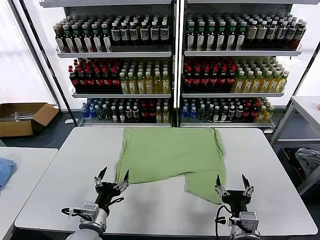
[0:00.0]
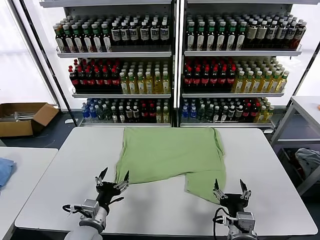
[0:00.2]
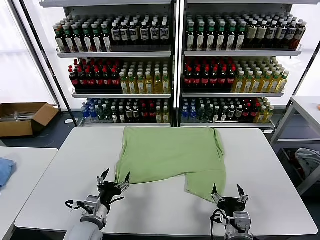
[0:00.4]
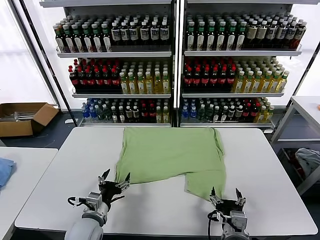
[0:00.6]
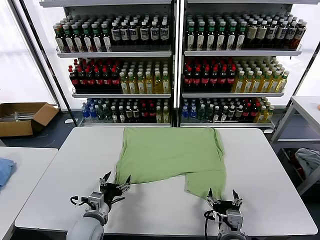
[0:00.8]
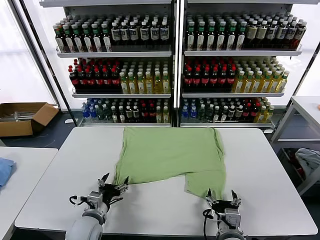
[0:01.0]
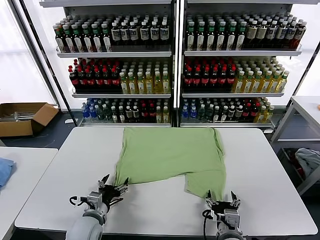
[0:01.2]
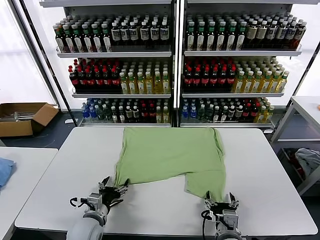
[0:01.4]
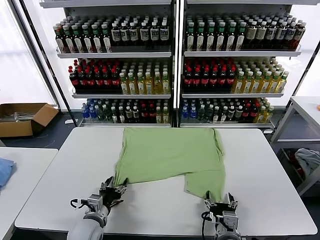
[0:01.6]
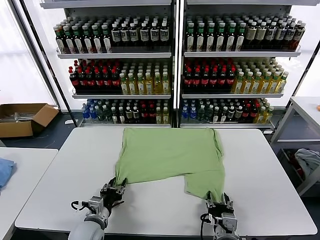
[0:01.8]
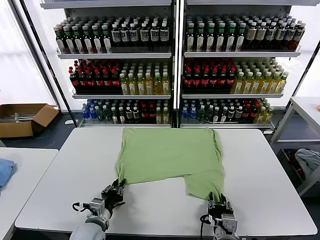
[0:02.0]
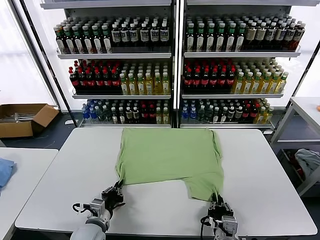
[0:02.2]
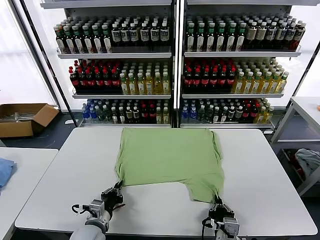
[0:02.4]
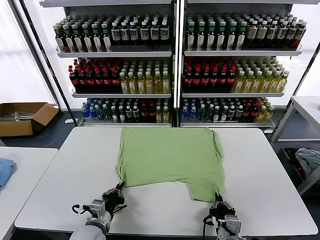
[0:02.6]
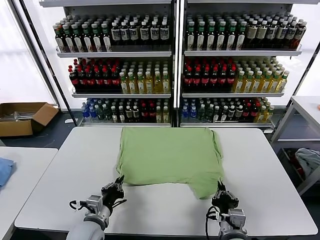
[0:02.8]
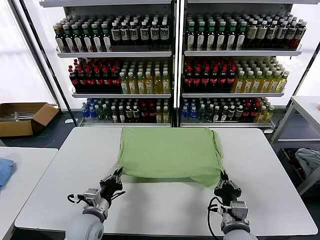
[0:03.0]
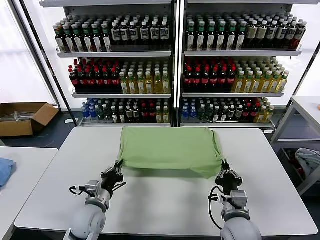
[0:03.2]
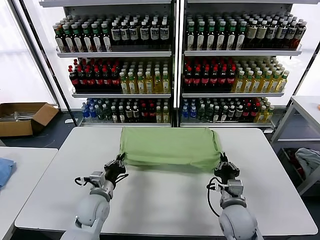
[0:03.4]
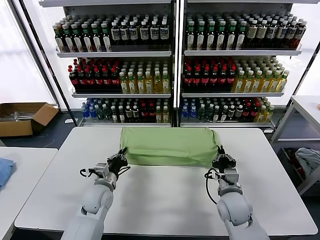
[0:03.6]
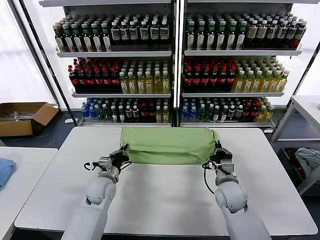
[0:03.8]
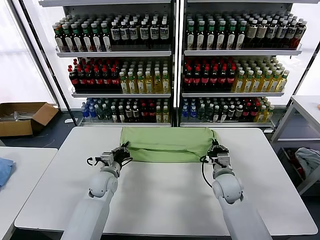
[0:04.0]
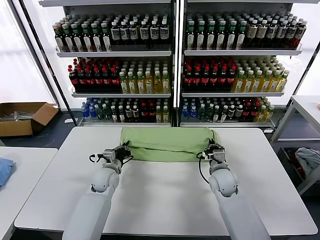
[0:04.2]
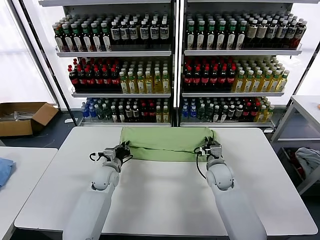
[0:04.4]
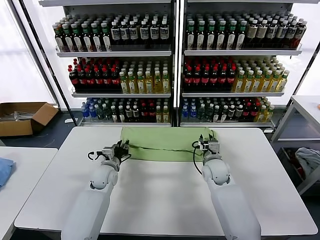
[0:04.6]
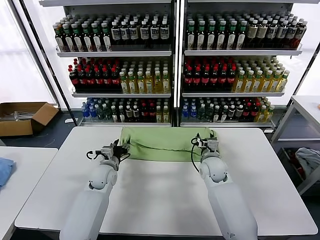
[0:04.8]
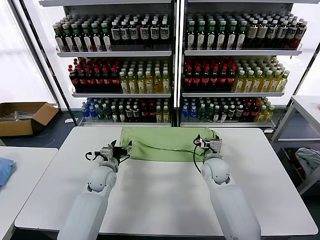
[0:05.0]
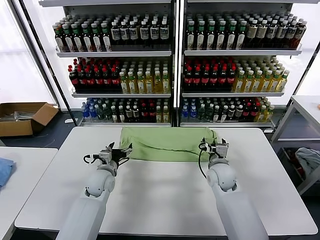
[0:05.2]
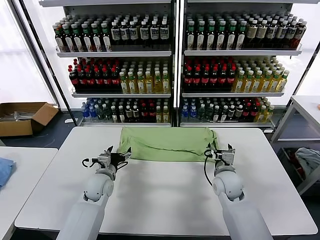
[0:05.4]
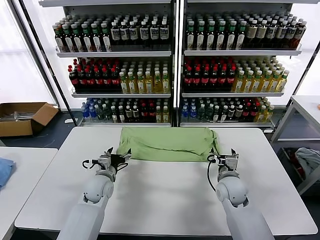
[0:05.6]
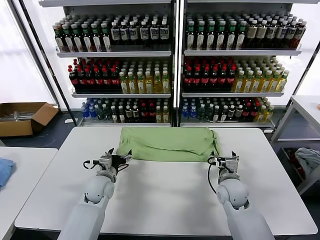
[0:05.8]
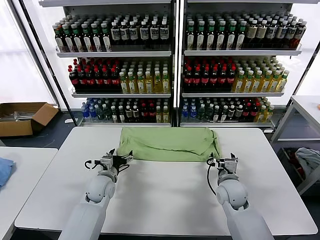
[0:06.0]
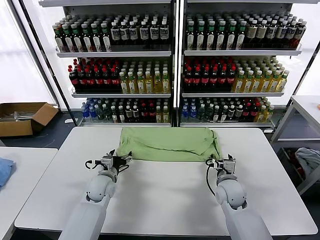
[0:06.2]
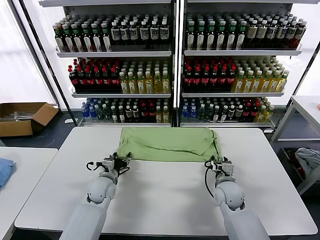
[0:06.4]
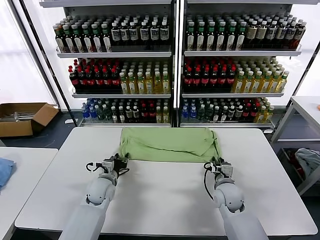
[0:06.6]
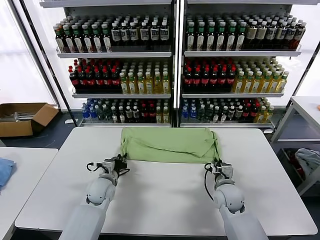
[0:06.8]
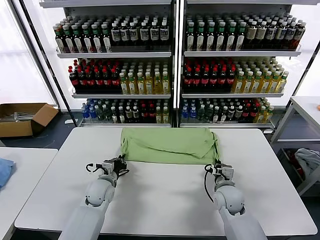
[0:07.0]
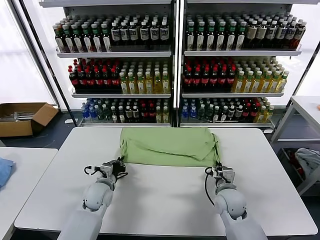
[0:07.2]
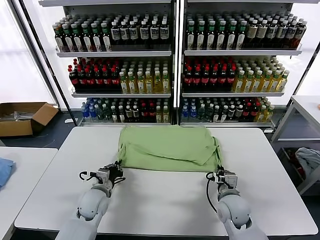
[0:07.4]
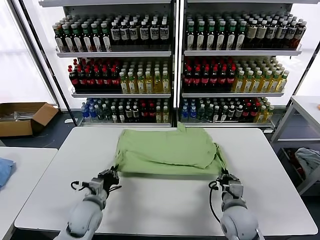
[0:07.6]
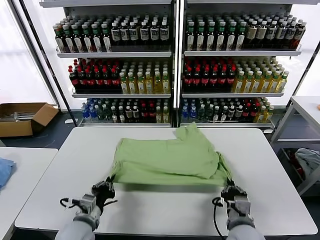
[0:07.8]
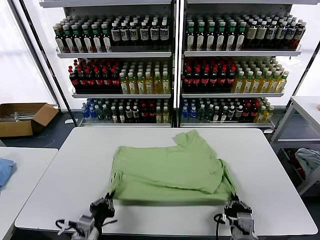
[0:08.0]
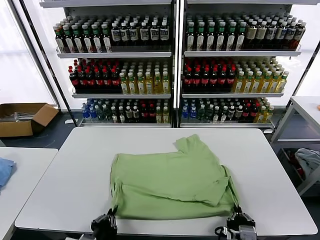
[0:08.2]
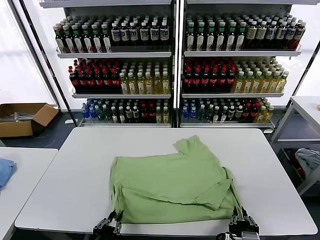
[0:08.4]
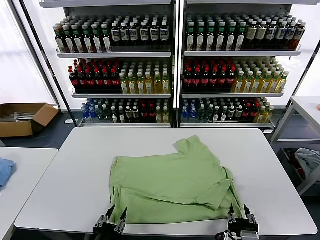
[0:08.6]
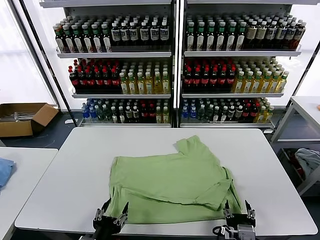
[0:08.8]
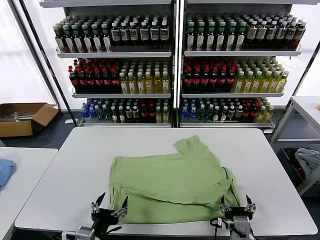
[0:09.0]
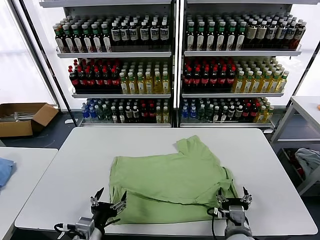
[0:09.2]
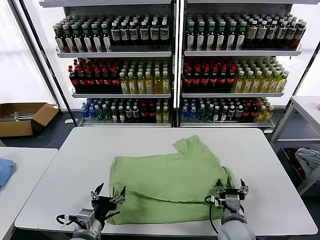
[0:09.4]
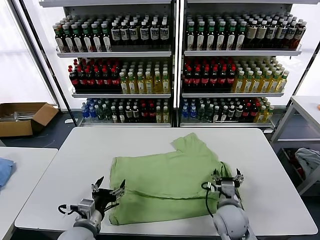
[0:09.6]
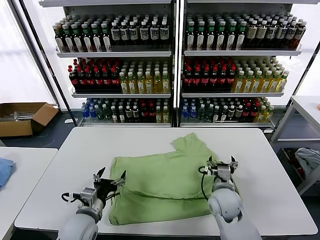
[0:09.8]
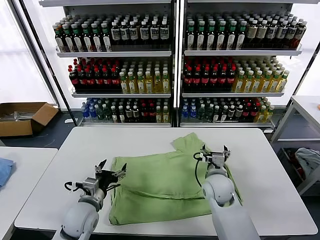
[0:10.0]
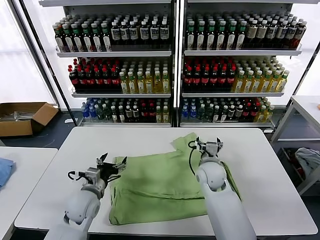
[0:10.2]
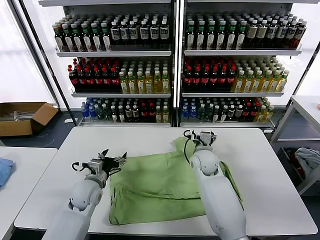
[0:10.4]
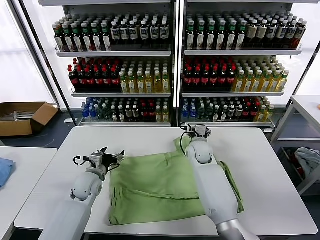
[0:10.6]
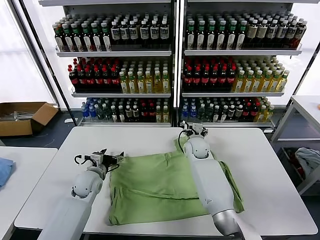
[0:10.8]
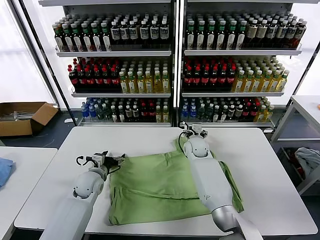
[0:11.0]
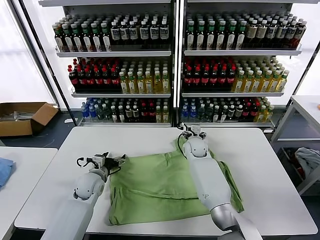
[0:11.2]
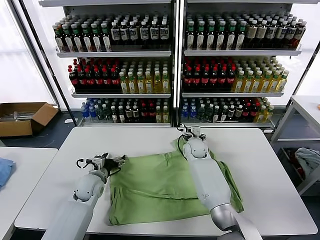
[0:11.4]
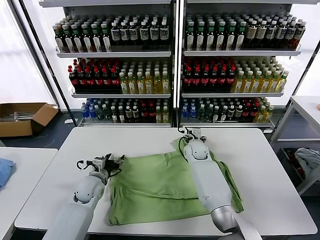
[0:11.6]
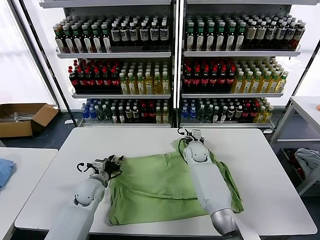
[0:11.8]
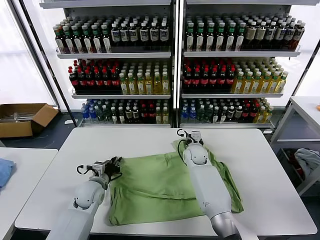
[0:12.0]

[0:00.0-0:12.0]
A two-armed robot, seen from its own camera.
Task of the whole recording: fold and organize the clothes.
Step, 0:00.0 to 0:02.4: use both grippers simultaneously to clamp the lower edge of the clothing fabric.
Step, 0:02.6 to 0:05.0: use both grippers to drag the lower edge of the fabric forward and fold it over the upper edge.
Step, 0:05.2 to 0:08.6: Drag the clothes downward with both gripper.
0:01.6 to 0:03.0: The left gripper closes its fingers. The right gripper heads upward, covering approximately 5 cm, and closes.
0:03.0 to 0:04.4: Both grippers travel together forward, some 20 cm.
0:04.4 to 0:06.0: The right gripper goes approximately 5 cm backward, and opens. The left gripper opens.
0:06.0 to 0:07.6: Both grippers move backward, roughly 10 cm. The right gripper closes its fingers. The left gripper closes its fingers.
0:07.6 to 0:09.0: The left gripper travels backward by roughly 15 cm, and opens. Meanwhile the right gripper goes some 10 cm backward, and opens up.
0:09.0 to 0:10.4: The two grippers go roughly 25 cm forward.
0:10.4 to 0:12.0: The right gripper heads downward and forward, covering some 10 cm, and closes up. The left gripper closes its fingers.

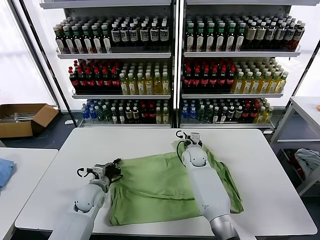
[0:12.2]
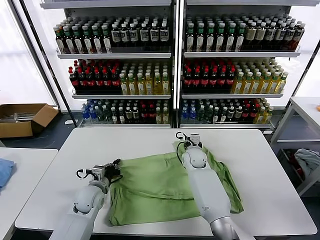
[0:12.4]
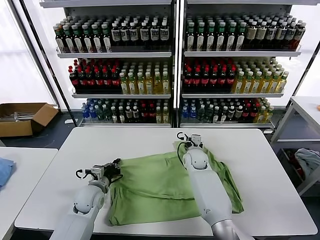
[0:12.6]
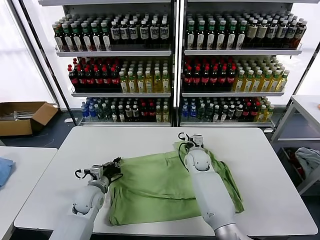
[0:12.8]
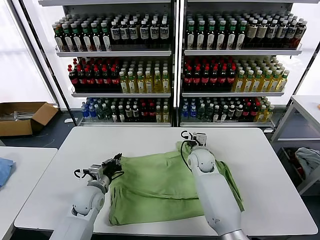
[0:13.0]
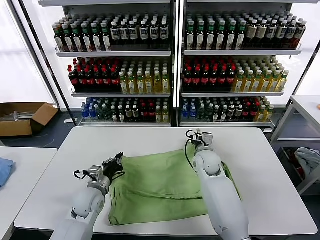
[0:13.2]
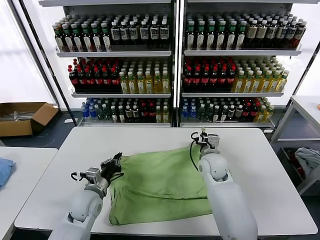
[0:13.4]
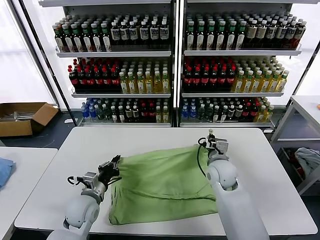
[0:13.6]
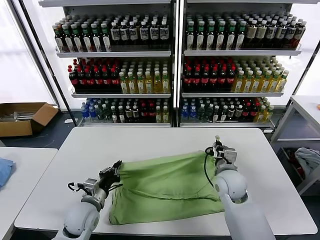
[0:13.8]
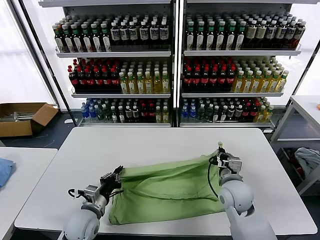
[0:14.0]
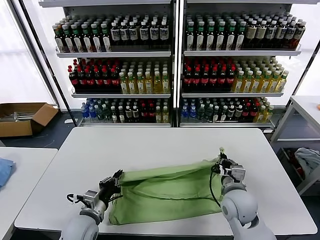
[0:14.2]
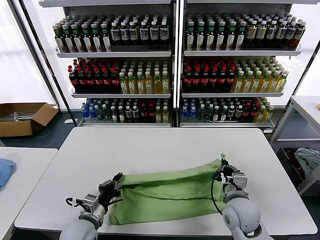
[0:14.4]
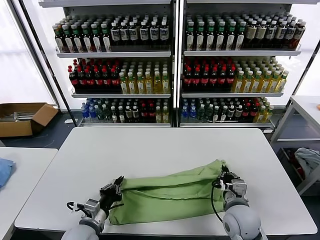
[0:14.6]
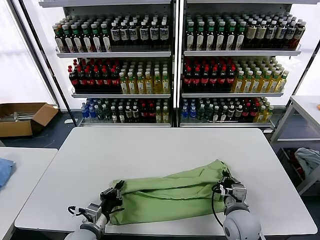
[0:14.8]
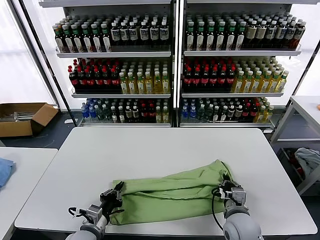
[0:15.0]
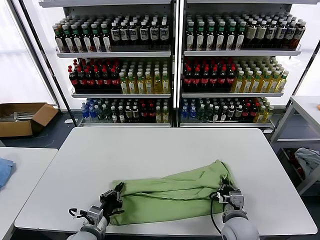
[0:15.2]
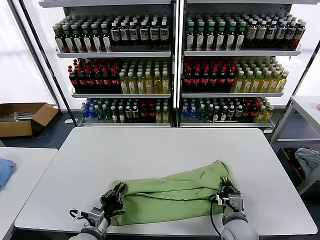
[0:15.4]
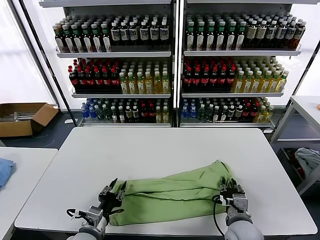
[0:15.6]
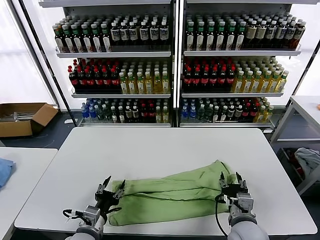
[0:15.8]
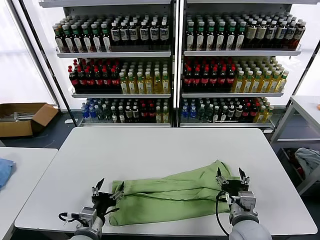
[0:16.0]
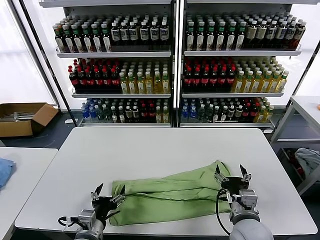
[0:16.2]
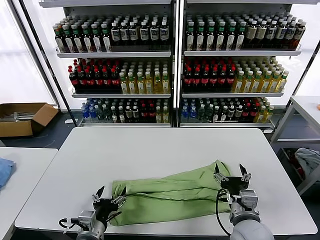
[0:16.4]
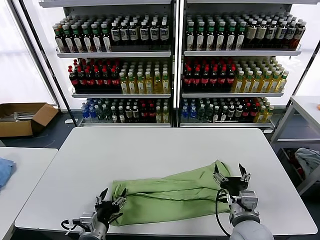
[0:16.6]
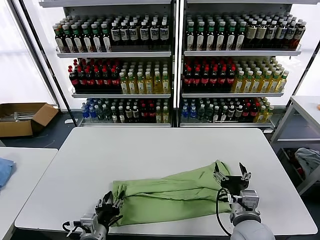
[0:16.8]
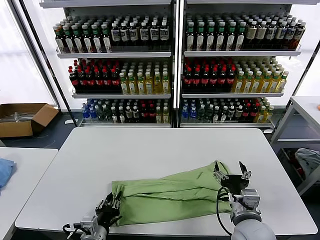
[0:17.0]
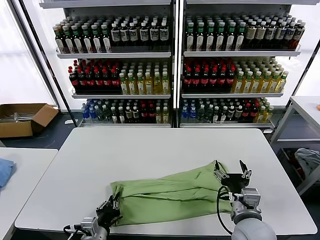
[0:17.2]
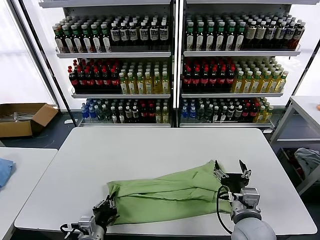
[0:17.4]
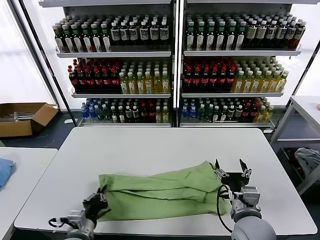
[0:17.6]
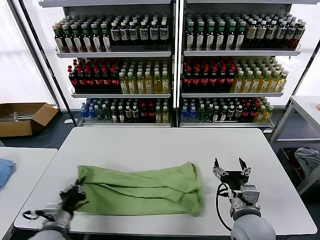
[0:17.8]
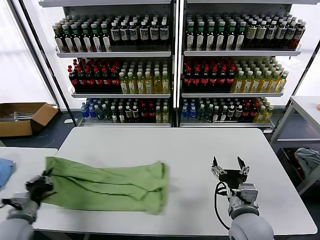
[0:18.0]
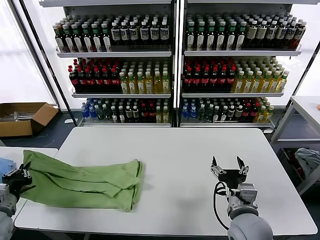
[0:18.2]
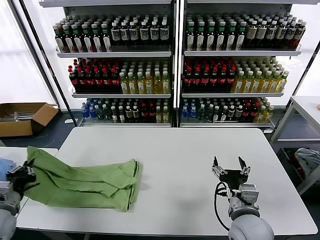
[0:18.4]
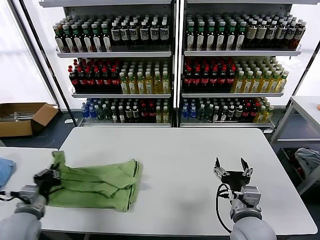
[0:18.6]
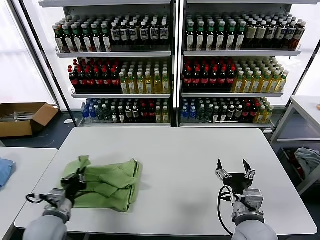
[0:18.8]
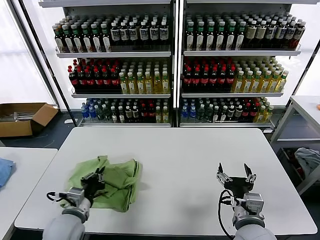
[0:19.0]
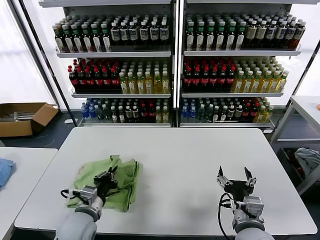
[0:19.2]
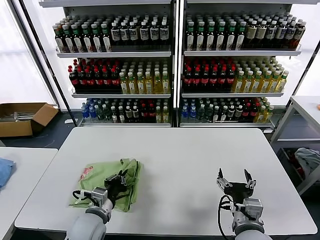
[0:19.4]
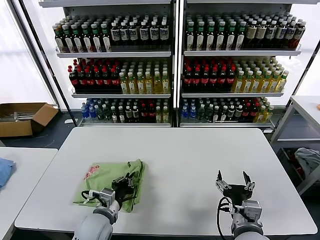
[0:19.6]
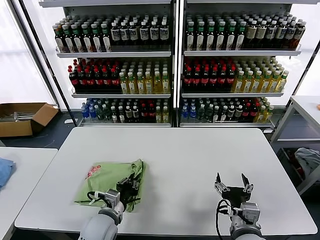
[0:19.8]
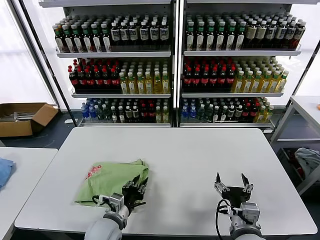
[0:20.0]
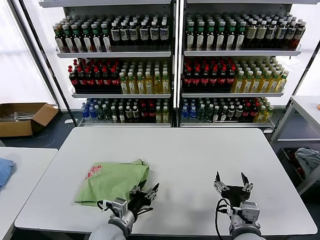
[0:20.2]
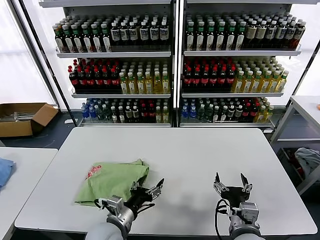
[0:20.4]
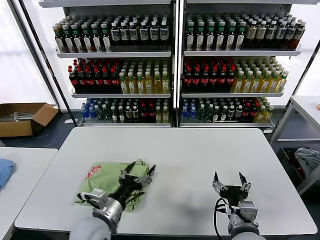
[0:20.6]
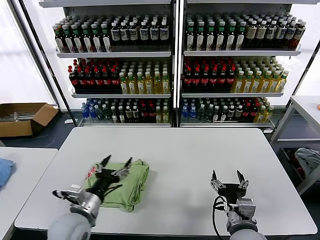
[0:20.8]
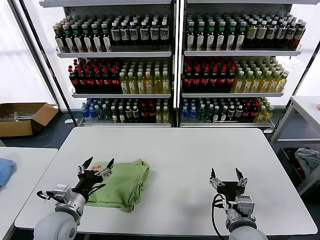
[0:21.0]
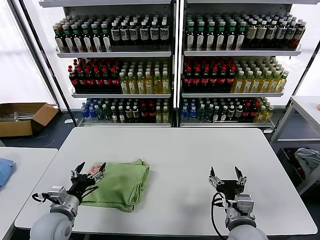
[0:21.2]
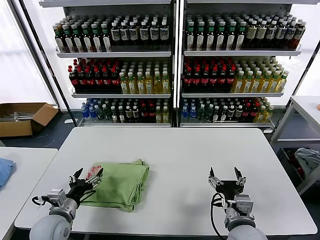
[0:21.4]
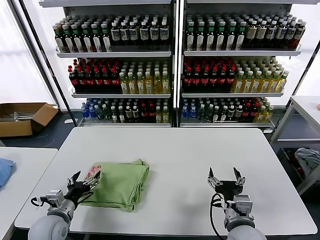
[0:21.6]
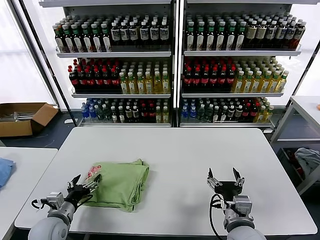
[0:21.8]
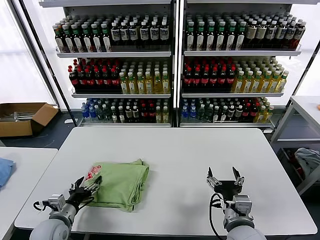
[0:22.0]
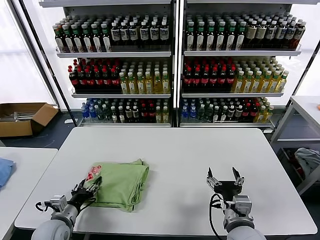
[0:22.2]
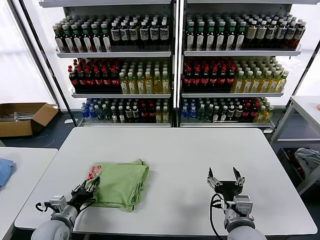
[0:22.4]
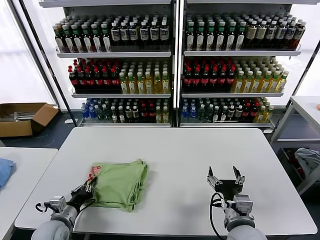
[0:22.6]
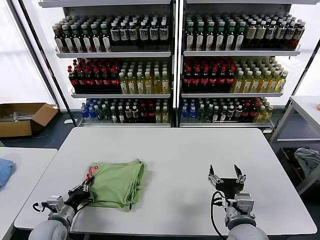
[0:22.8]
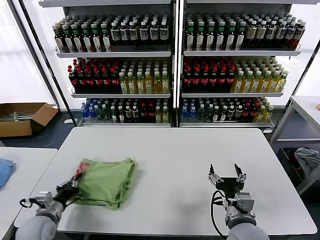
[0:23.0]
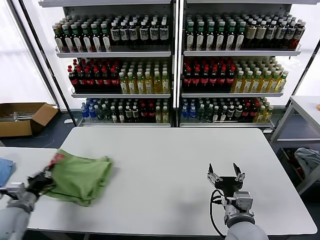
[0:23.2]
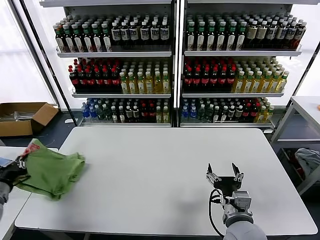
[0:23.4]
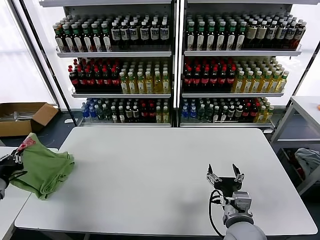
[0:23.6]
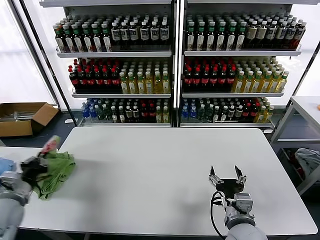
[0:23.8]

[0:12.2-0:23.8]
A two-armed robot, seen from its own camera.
Task of the whole recording: fold and organize the clothes.
Step, 0:12.6 to 0:15.8: use both grippers to drag the upper edge of the fabric backward and fold it over the lower edge.
Step, 0:16.0 to 0:17.2: use the left gripper to clamp the left edge of the fabric.
Step, 0:17.4 to 0:20.2: use the left gripper to drag the left edge of the fabric to the left and folds it over the right edge.
0:12.2 to 0:13.6: The left gripper shifts roughly 5 cm backward. The right gripper is displaced backward, upward and to the right by approximately 15 cm.
0:13.6 to 0:15.0: Both grippers travel together backward, approximately 15 cm.
0:15.0 to 0:16.6: The left gripper opens up. The right gripper moves upward, roughly 5 cm, and opens up.
0:16.6 to 0:18.0: The left gripper heads to the left, covering approximately 20 cm, and closes.
0:18.0 to 0:19.4: The left gripper is displaced to the right by about 20 cm.
0:19.4 to 0:21.0: The left gripper travels to the left by some 5 cm, and opens its fingers.
0:21.0 to 0:22.4: The left gripper is displaced downward and to the left by roughly 10 cm, and closes up.
0:22.4 to 0:23.8: The left gripper is displaced upward and to the left by roughly 15 cm, and closes.
